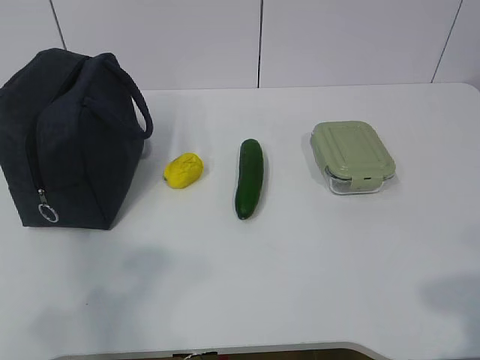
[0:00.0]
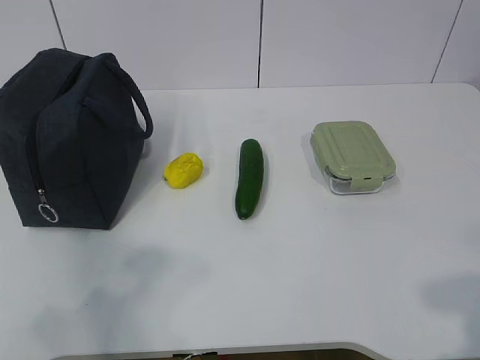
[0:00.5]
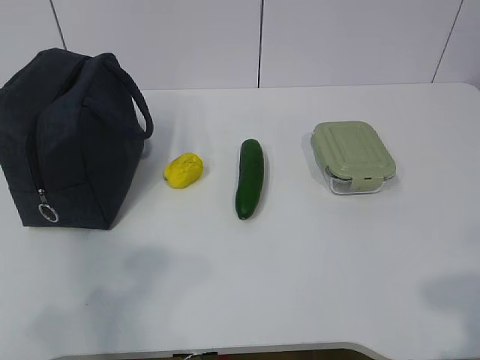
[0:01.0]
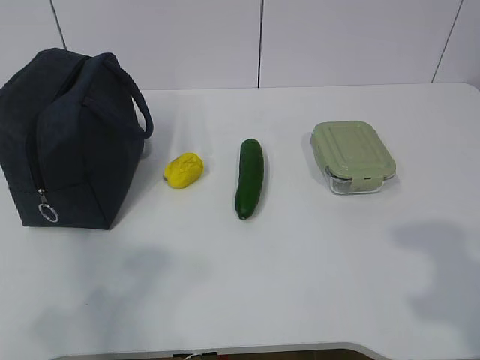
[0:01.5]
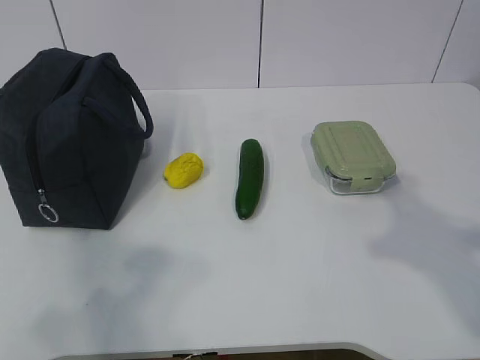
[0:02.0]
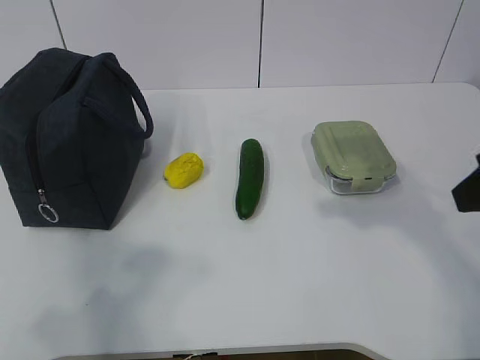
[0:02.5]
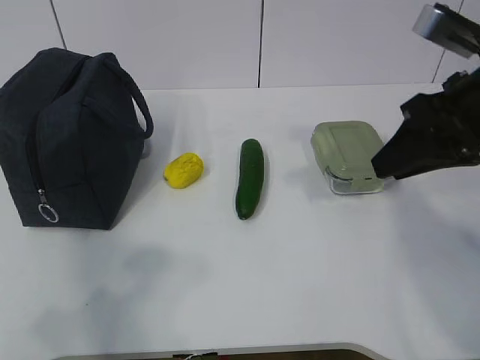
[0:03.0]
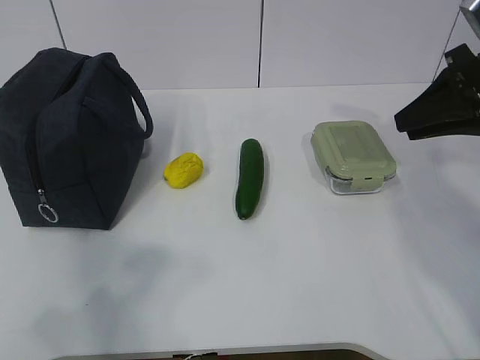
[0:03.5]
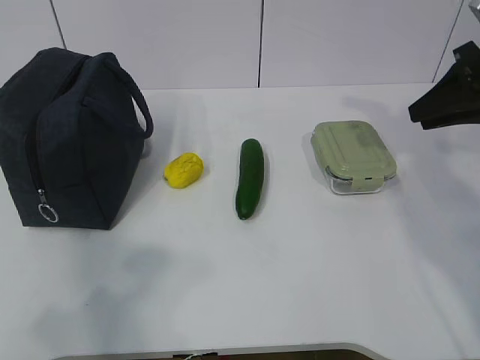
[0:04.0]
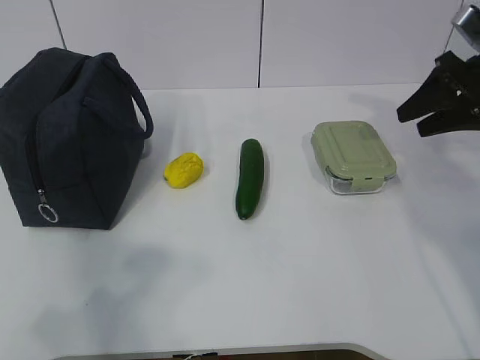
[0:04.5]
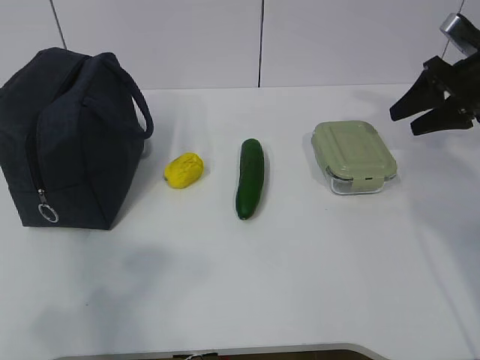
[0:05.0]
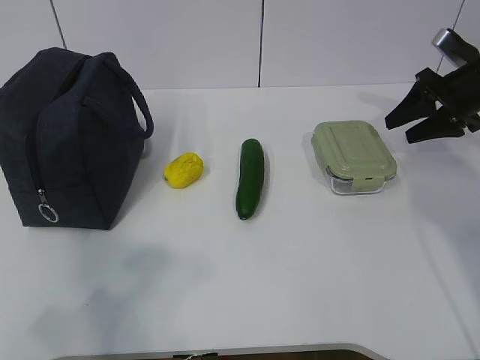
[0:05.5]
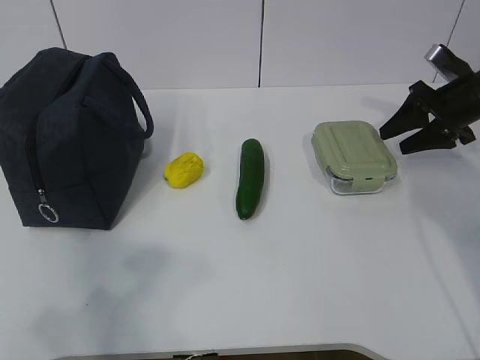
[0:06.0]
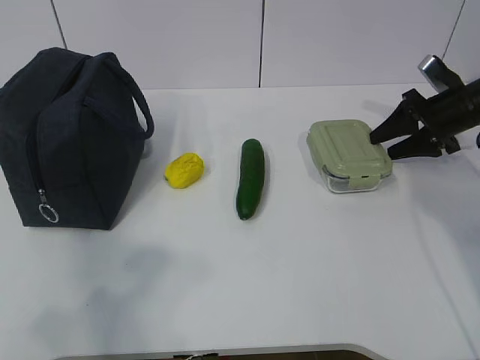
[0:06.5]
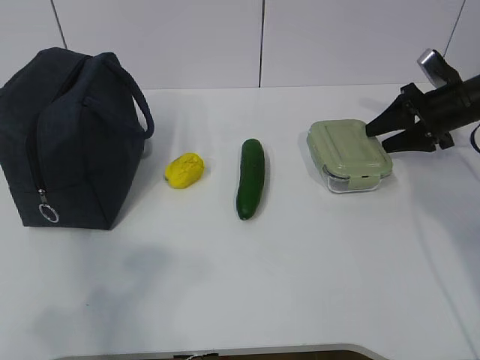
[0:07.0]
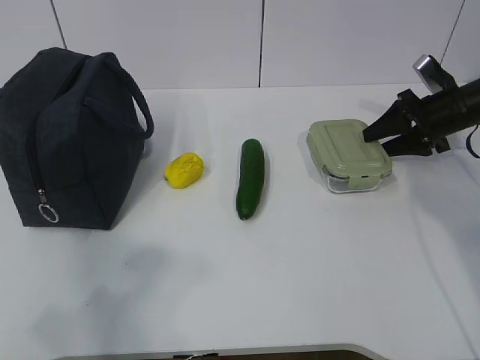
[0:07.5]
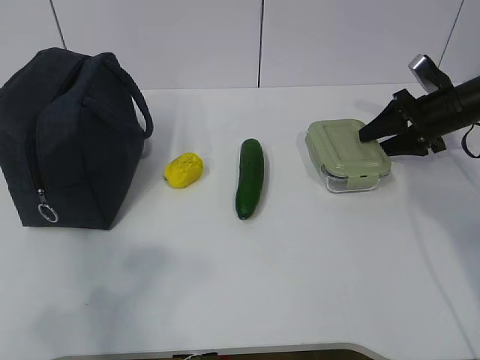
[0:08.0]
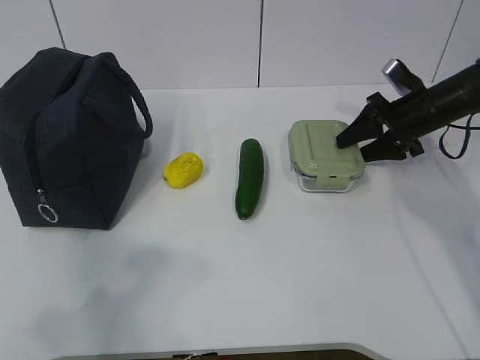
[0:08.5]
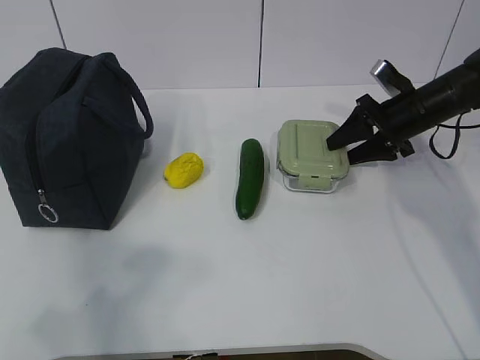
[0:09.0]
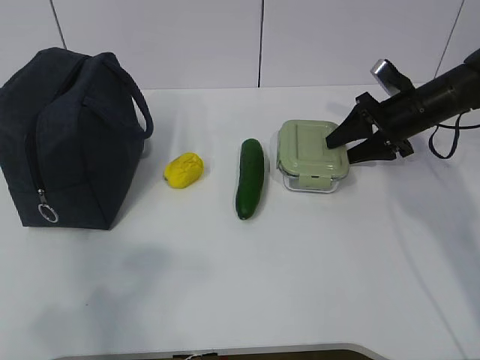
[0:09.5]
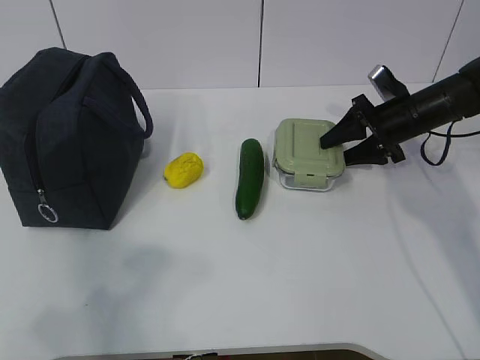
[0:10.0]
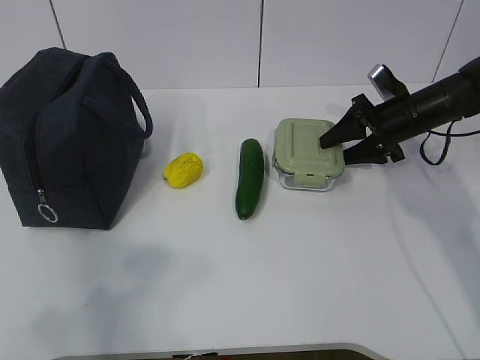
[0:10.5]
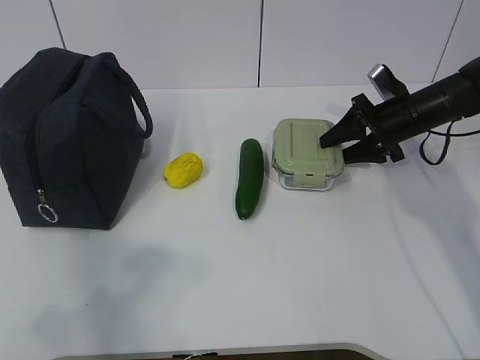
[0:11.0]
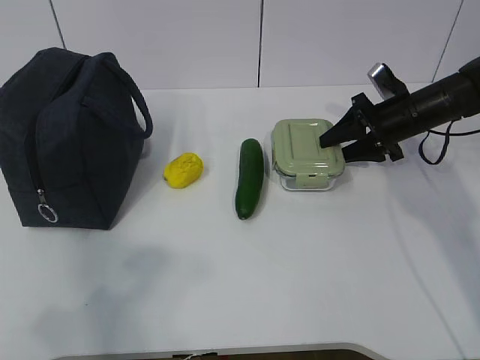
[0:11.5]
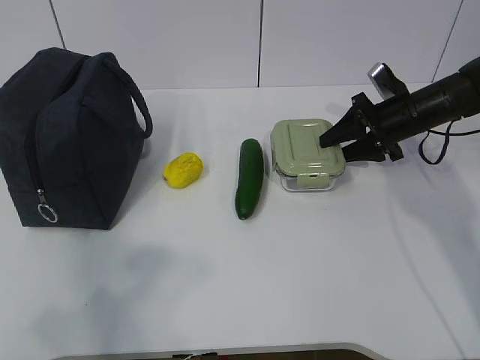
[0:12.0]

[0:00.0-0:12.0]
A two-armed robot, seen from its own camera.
Step, 0.0 to 10.5 s: Grab the lunch box with your right hand.
2.0 to 4.0 s: The right gripper moves forward, approximately 25 cm.
4.0 to 6.0 s: The right gripper goes some 15 cm forward and downward, and opens its fingers.
6.0 to 8.0 s: The grippers stay close to where they were, moving slightly.
8.0 to 10.0 s: The right gripper goes about 5 cm to the left.
10.0 to 12.0 s: Both grippers stay about where they are.

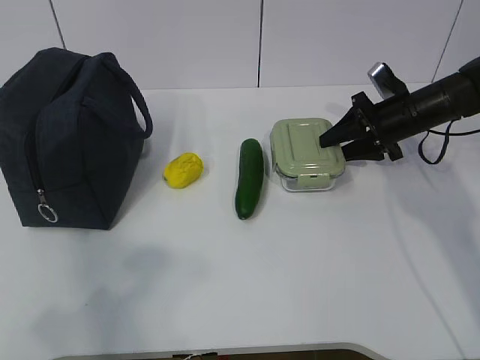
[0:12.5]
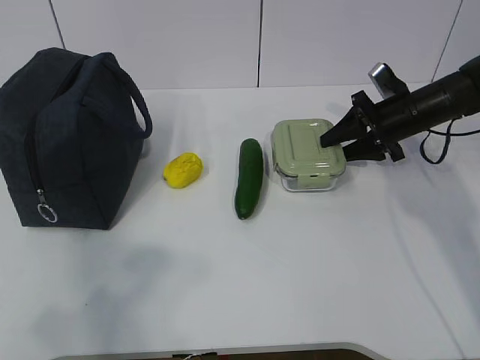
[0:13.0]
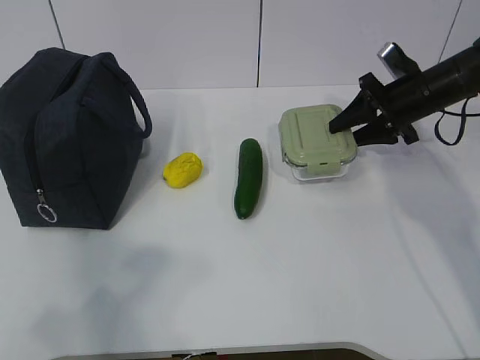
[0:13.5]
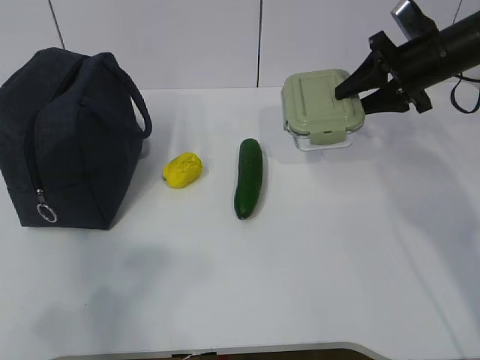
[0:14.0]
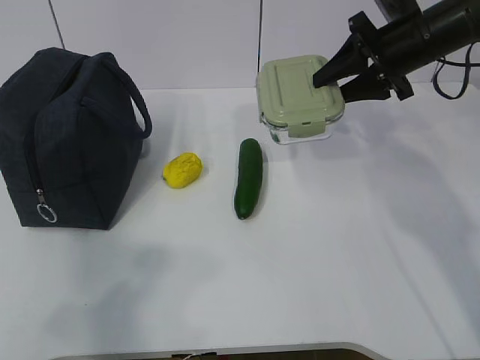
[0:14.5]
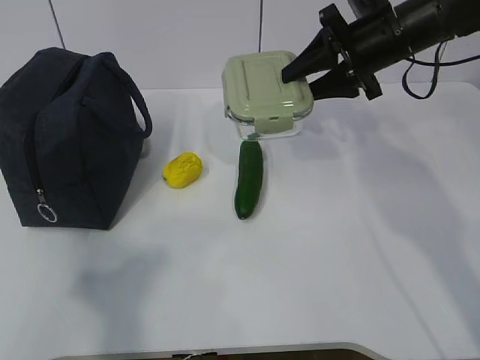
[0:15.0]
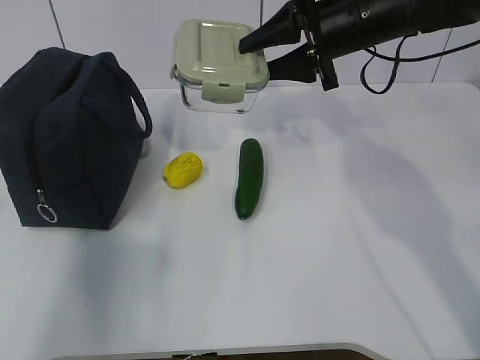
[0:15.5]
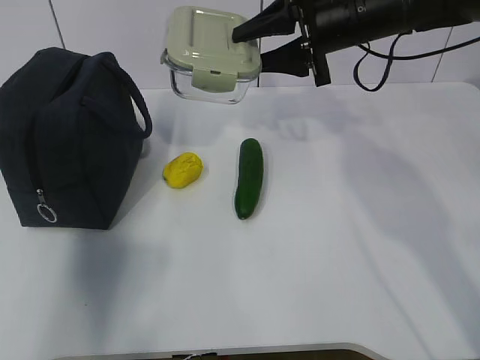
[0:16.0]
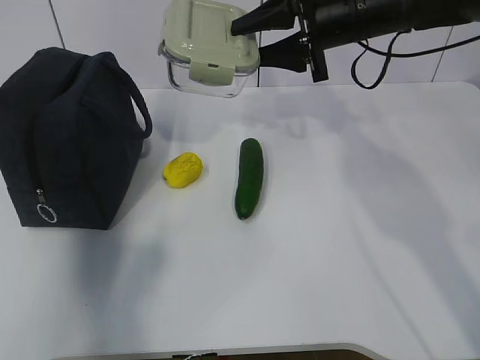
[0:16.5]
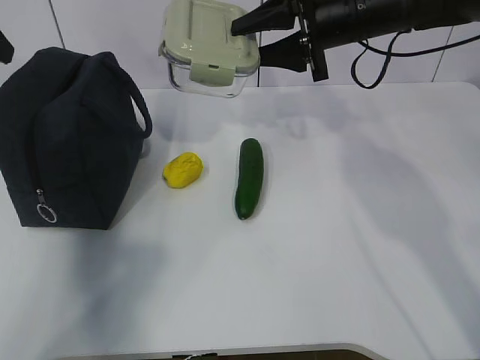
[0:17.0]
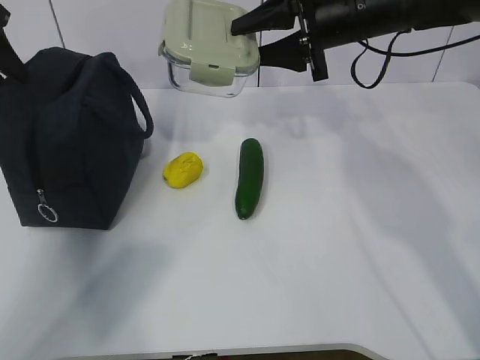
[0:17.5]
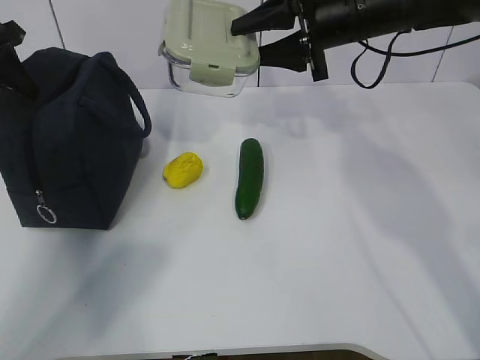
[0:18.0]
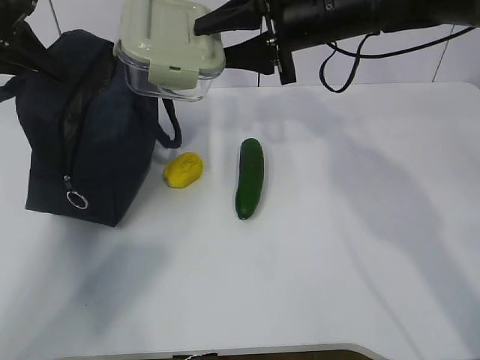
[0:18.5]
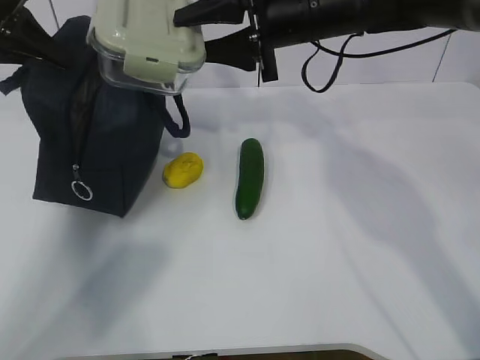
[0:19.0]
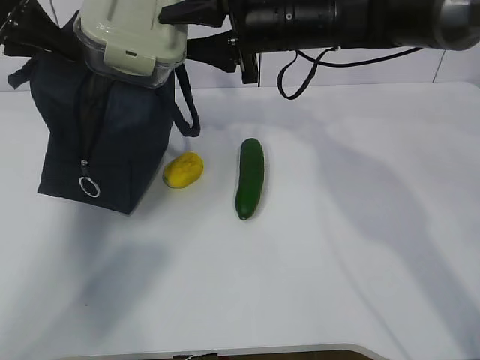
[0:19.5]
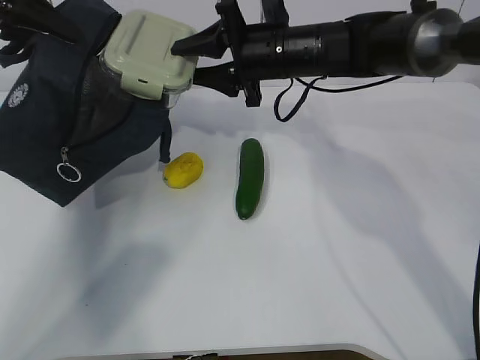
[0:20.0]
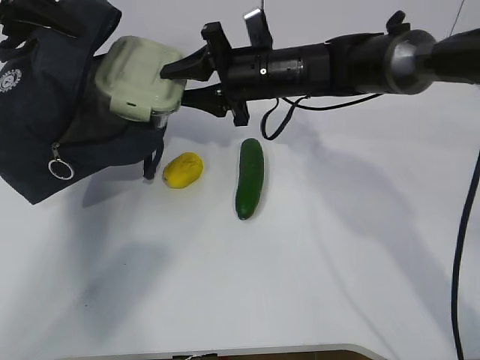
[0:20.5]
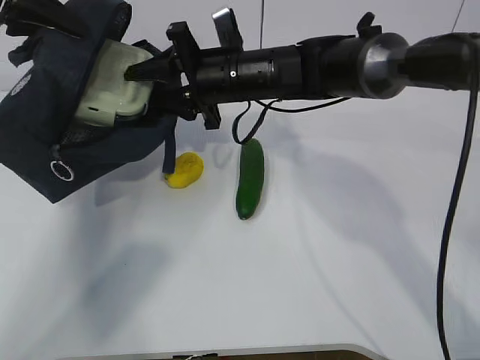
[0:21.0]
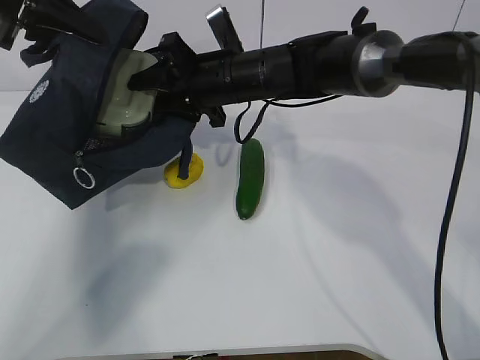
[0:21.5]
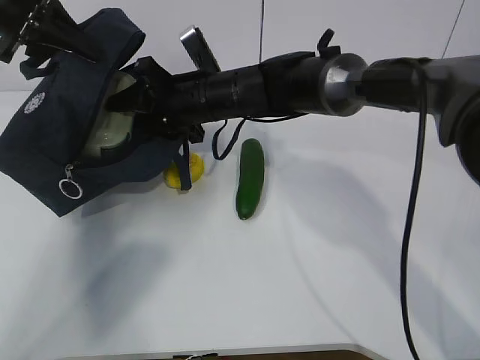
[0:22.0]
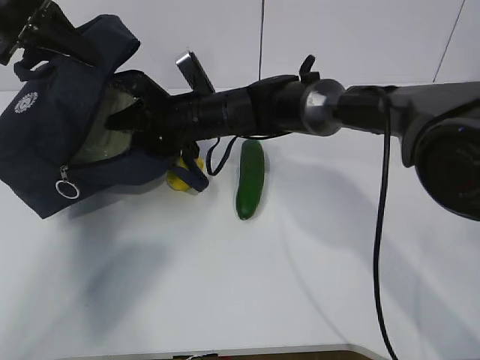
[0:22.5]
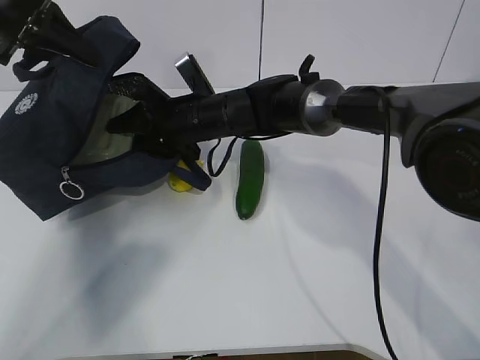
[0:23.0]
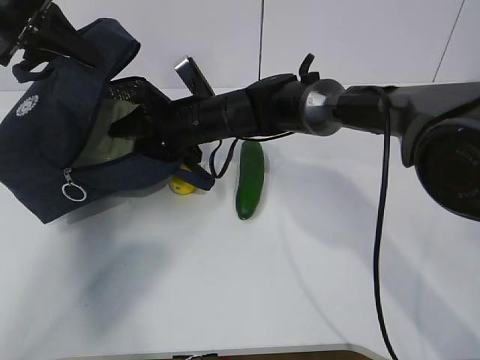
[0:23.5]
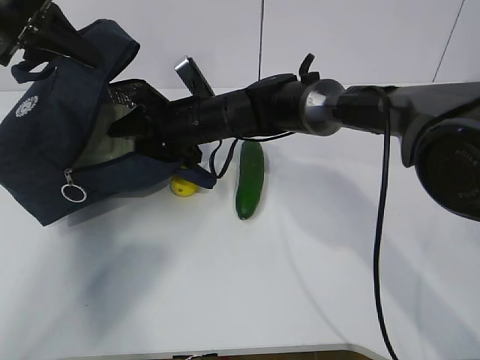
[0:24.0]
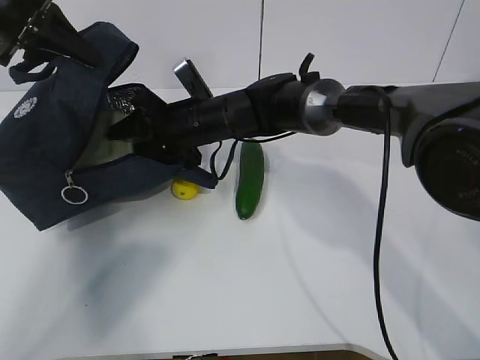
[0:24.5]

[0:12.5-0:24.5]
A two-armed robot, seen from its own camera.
Step, 12.5 to 16.0 s: Grab the lunch bag with your left hand.
Step, 16.5 to 20.5 s: Place it into the bag with your right hand.
12.5 to 14.5 s: The right gripper shifts roughly 10 cm upward.
14.5 to 16.5 s: The left gripper heads forward, covering some 30 cm, while the right gripper goes some 10 cm to the left.
16.5 to 18.5 s: The left gripper is displaced forward and downward by about 15 cm, and closes up.
18.5 to 20.5 s: The right gripper goes roughly 10 cm downward and to the left.
20.5 to 22.5 s: The right gripper shifts about 10 cm to the left and downward.
22.5 to 24.5 s: The two grippers keep their place.

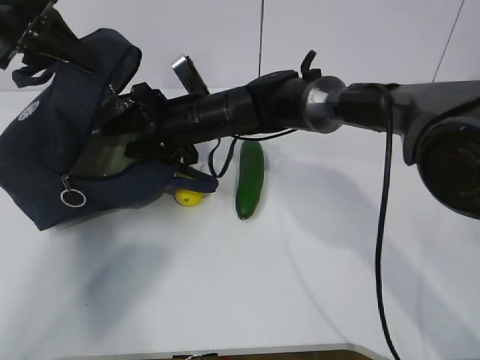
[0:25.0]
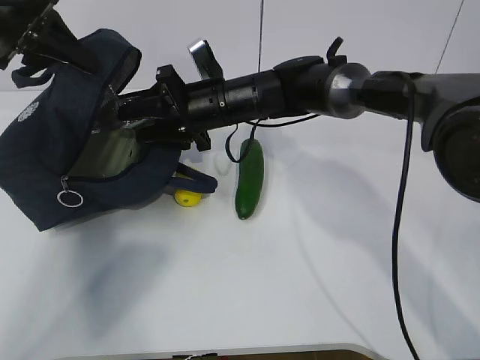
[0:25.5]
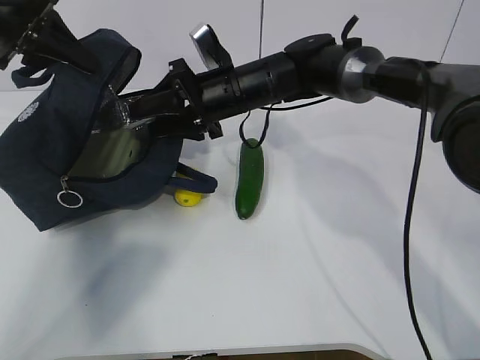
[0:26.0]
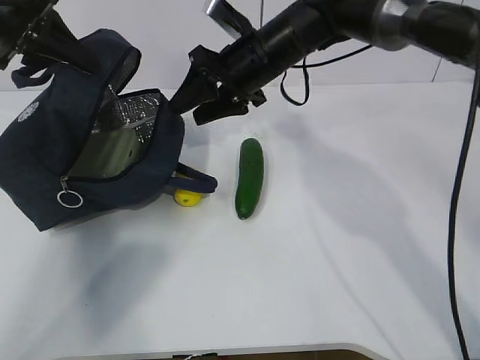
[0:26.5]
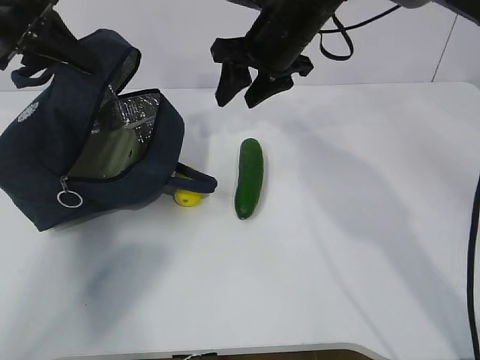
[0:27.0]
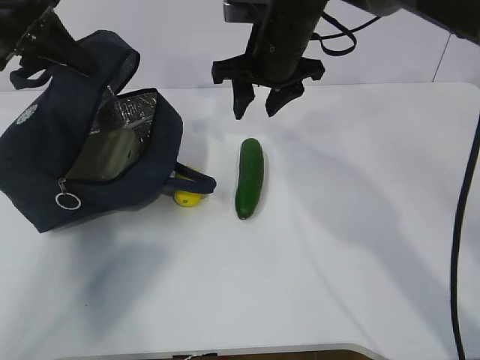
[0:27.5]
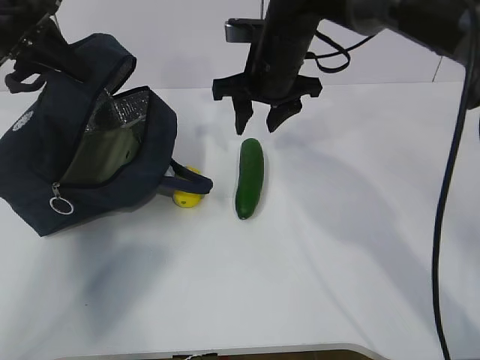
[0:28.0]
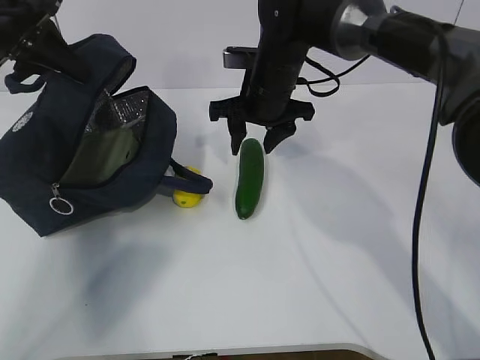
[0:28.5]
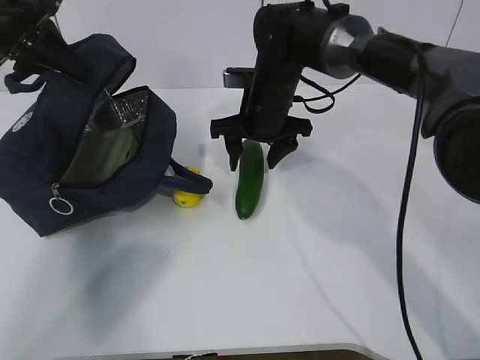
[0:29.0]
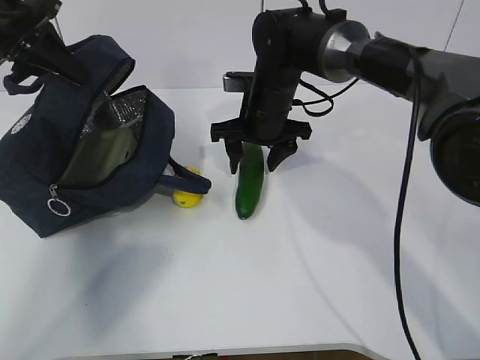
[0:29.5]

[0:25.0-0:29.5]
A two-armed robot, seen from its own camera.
Step, 27.0 to 29.5 s: Place it into the bag with your right hand.
25.0 to 27.0 s: The right gripper travels upward and to the right by some 15 cm.
27.0 to 29.5 s: The right gripper goes about 10 cm downward.
